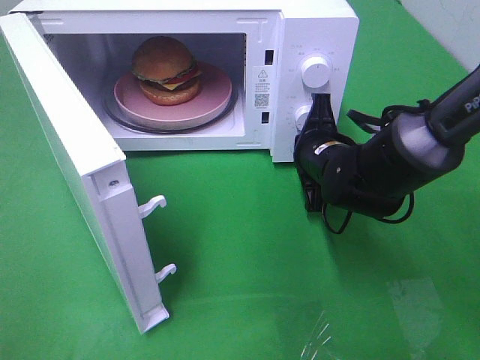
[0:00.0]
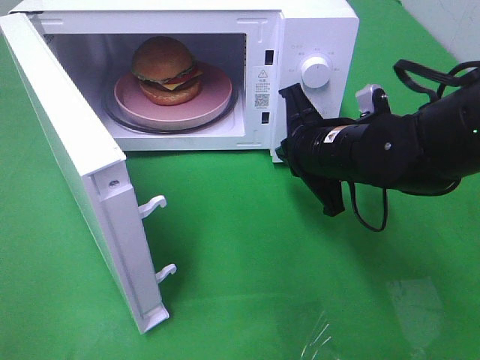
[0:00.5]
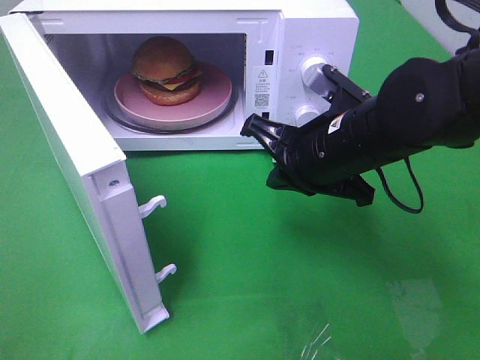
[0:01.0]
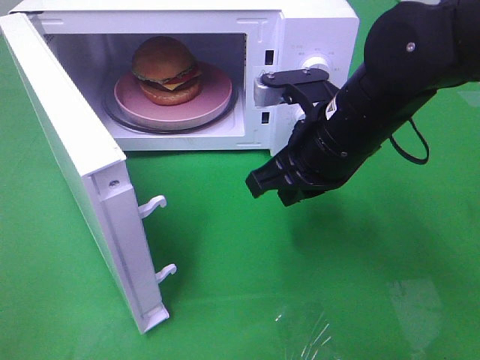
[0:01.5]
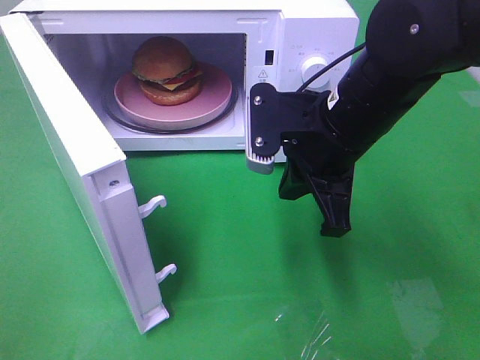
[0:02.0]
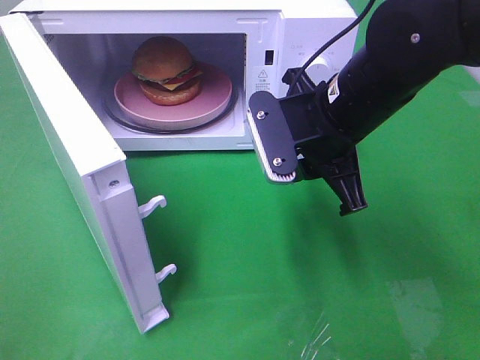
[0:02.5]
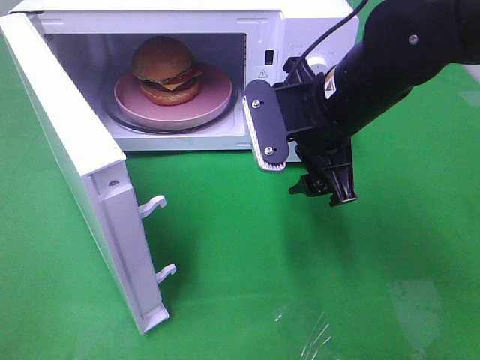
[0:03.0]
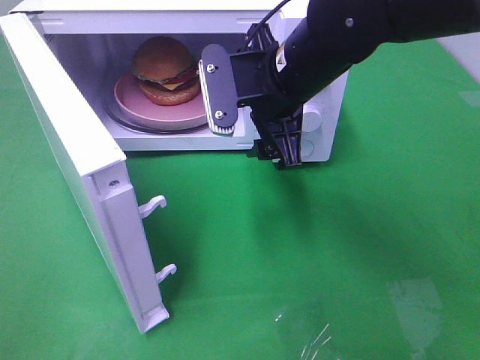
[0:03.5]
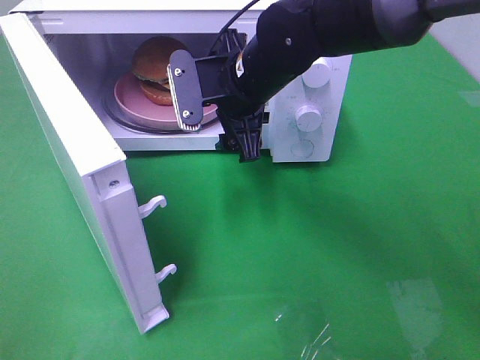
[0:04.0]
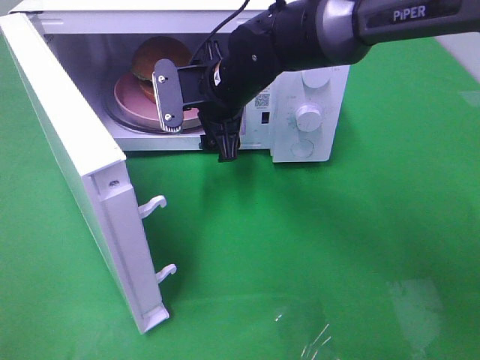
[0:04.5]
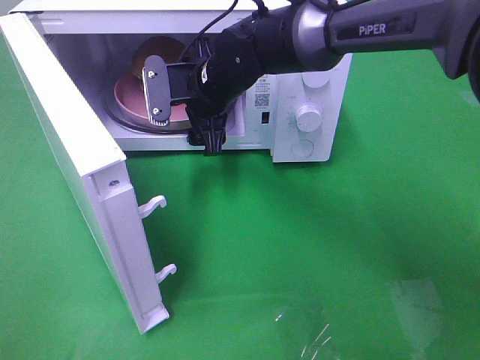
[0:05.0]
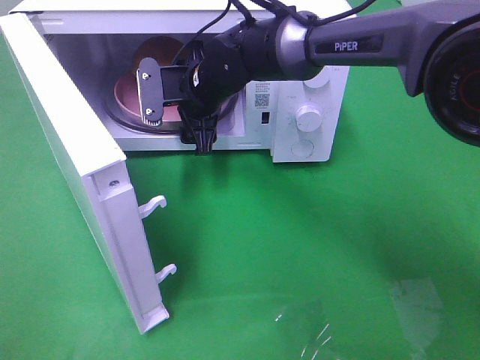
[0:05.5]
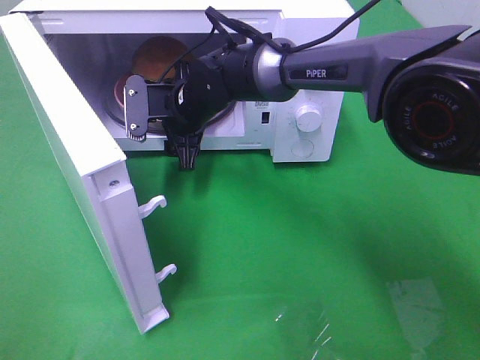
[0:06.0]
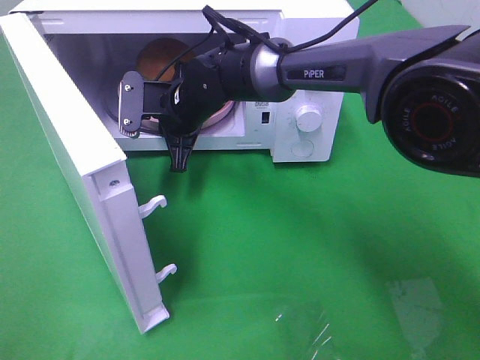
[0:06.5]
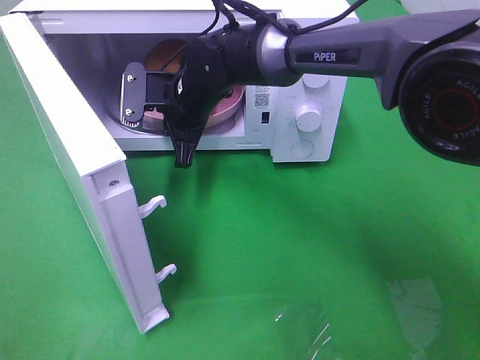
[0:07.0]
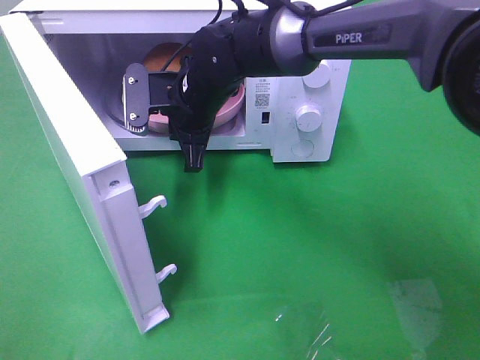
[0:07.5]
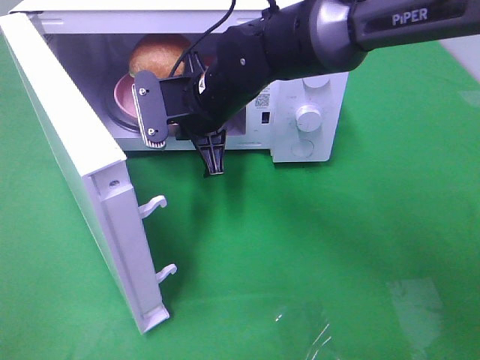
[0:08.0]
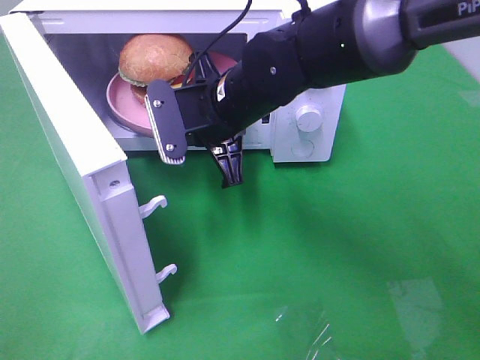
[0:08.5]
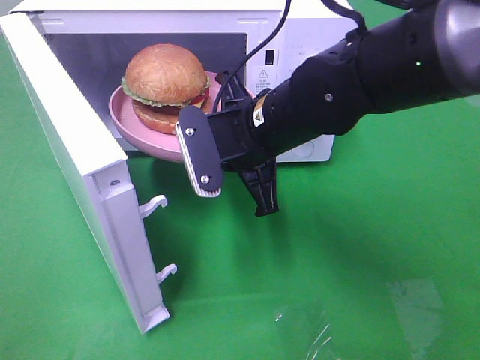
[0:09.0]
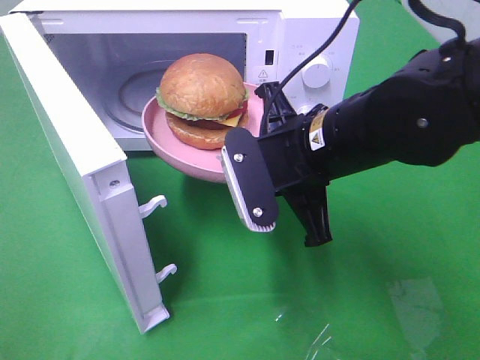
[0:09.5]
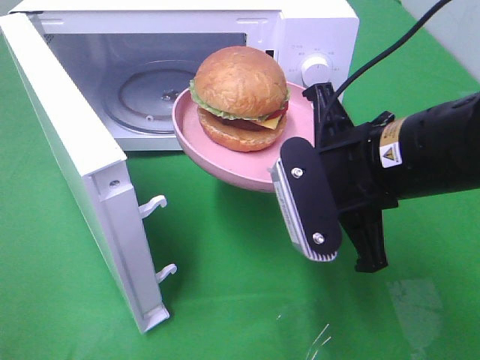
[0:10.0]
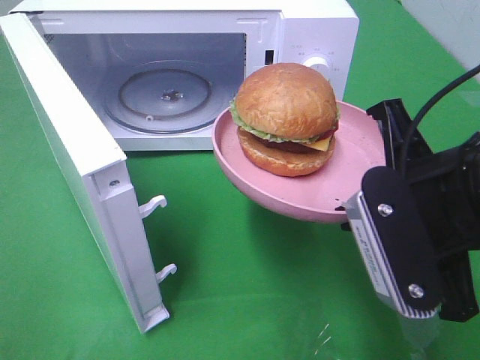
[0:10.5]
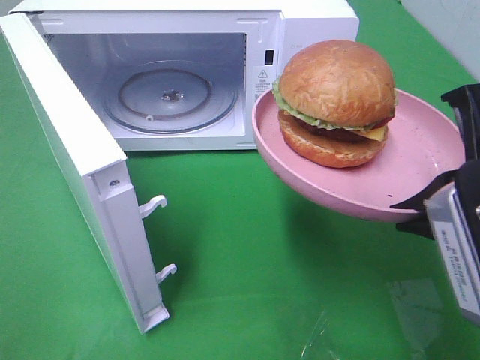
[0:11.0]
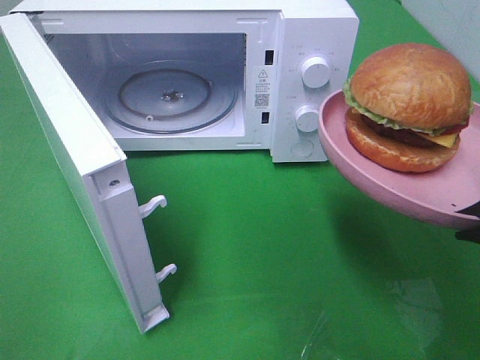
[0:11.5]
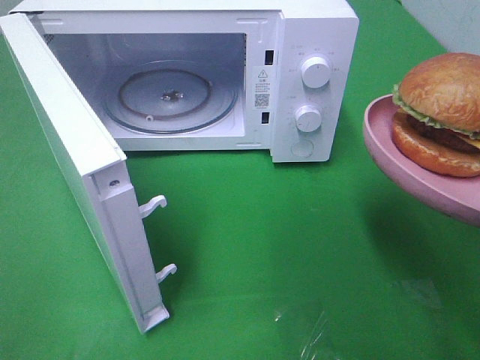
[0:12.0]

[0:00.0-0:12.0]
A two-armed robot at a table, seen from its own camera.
Task of the whole recording: Heat the burger.
Step, 0:00.5 to 0:06.5: Right hand: grab the plate with the hamburger.
0:00.0 to 0:02.0: The right gripper shifts about 10 cm upward and backward.
0:02.0 to 0:04.0: The right gripper moves forward and to the left, approximately 10 cm, and opens up.
0:04.0 to 0:06.0: The right gripper goes approximately 10 cm downward, to the left and forward.
0:06.0 to 0:08.0: The right gripper shifts approximately 10 cm backward and upward, and closes its fingers.
0:08.0 to 0:10.0: The right gripper heads backward and to the right, covering roughly 20 cm.
0:10.0 to 0:12.0: The right gripper shifts approximately 15 cm to the right and backward.

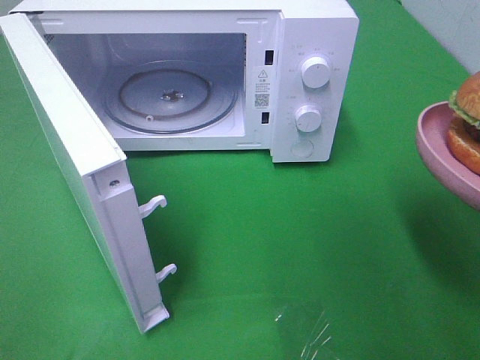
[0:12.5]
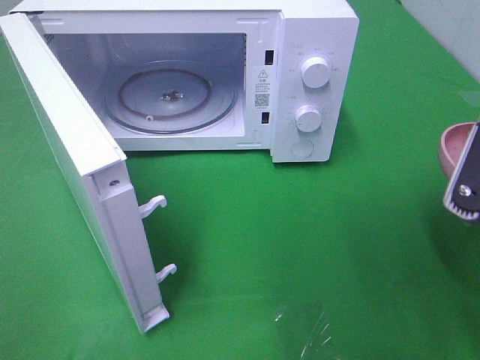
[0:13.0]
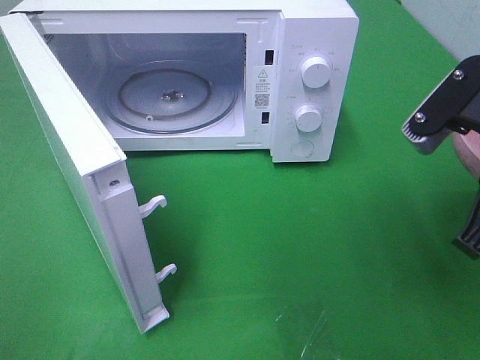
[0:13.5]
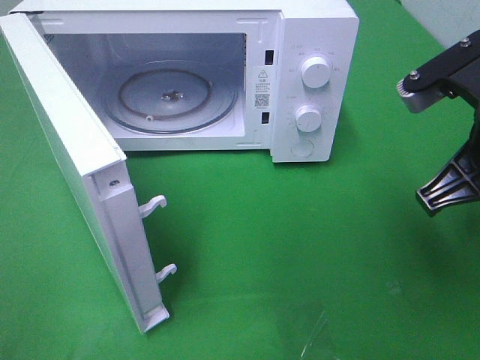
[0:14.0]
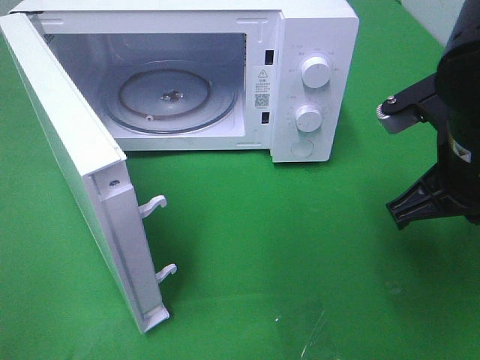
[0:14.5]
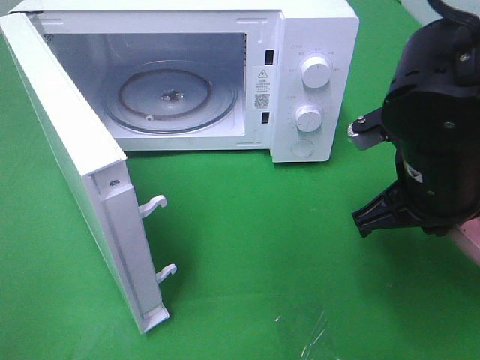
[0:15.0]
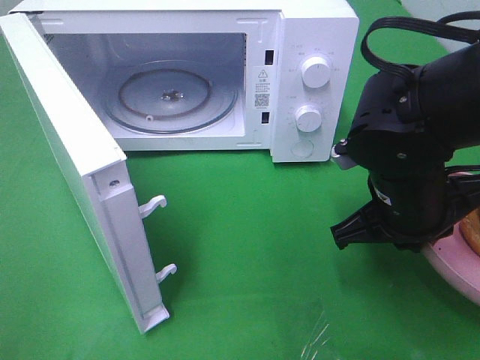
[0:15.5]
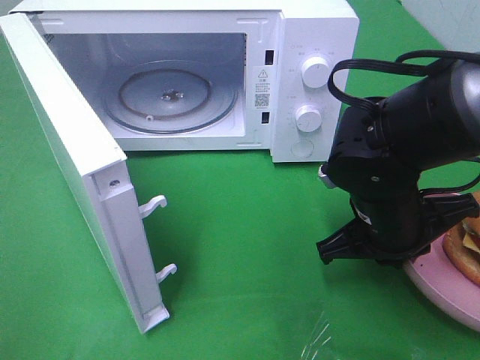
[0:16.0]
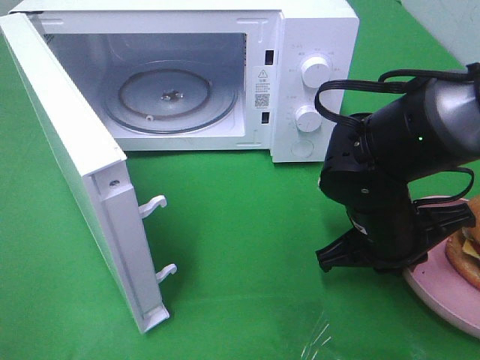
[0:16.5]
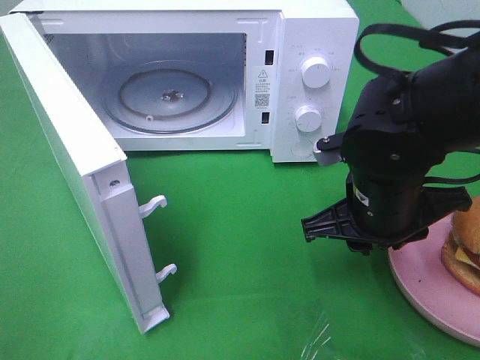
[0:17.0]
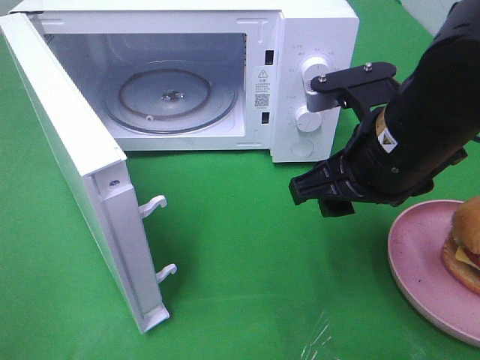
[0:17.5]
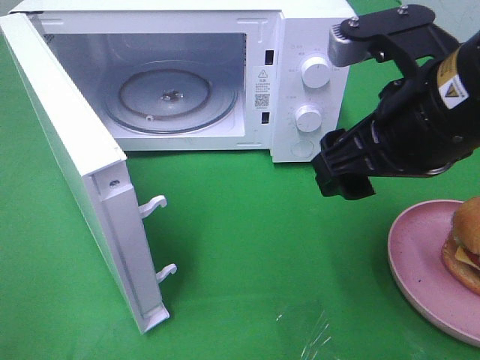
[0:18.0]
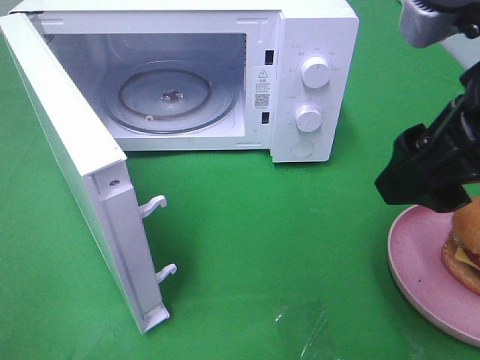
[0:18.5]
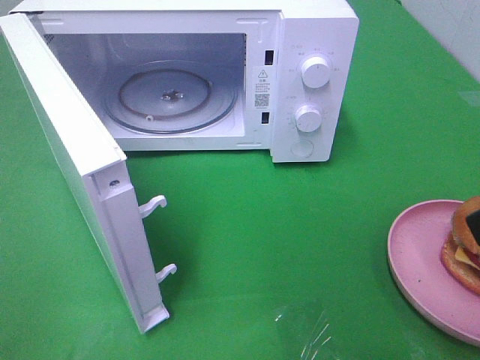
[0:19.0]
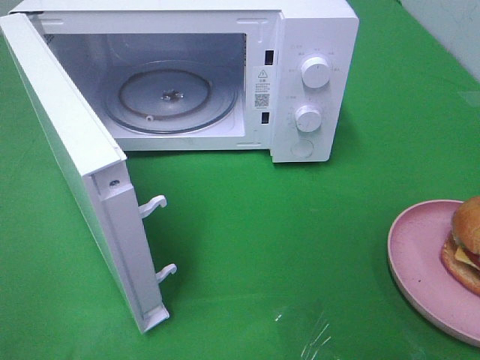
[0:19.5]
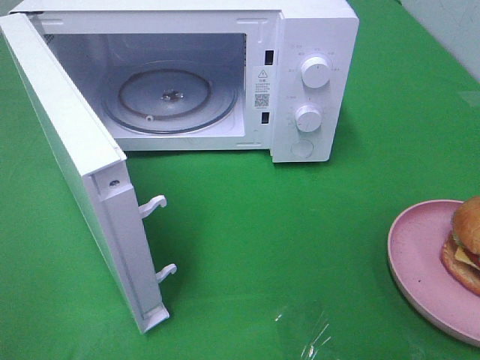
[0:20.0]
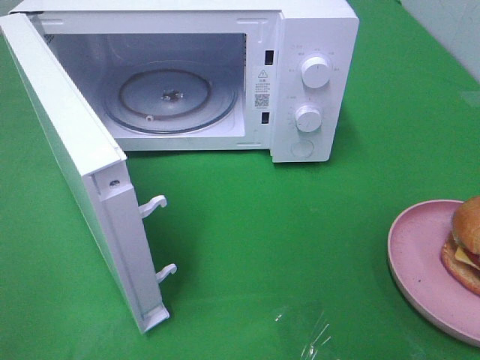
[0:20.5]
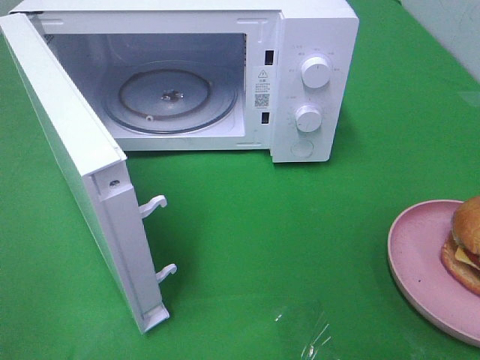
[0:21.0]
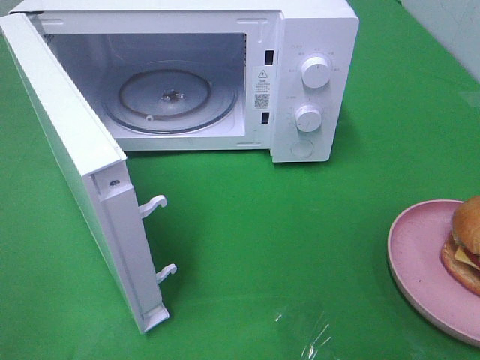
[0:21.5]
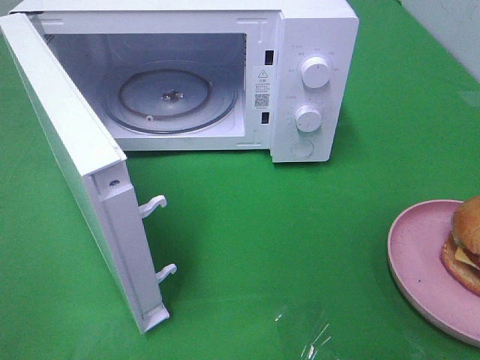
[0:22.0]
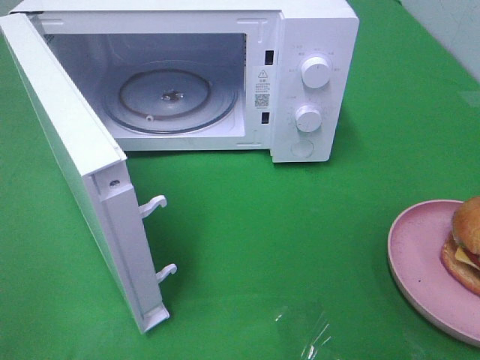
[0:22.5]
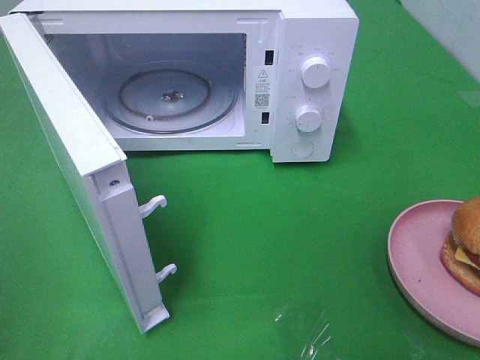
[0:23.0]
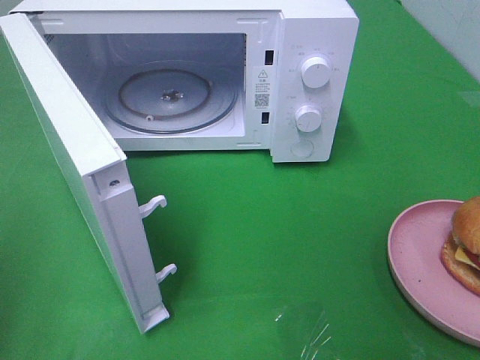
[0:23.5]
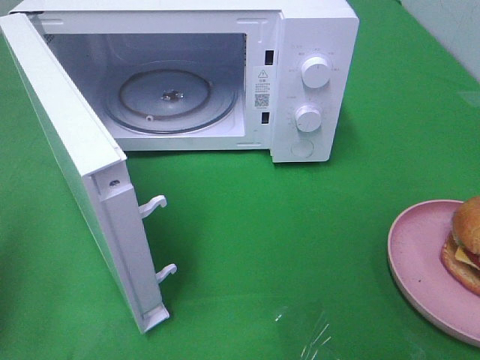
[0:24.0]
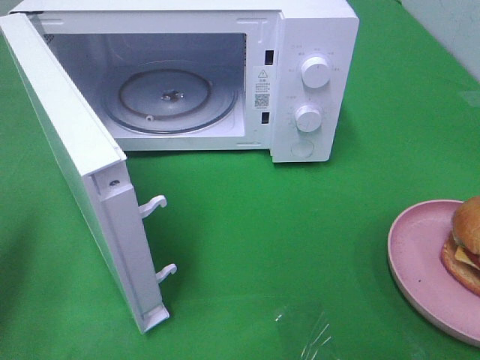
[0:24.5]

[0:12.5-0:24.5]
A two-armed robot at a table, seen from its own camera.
Task of the whole recording: Heat the burger.
Step, 0:12.5 to 0:16.5: Right hand: place the plate on the table.
0:12.5 to 0:14.5: The right gripper heads forward and to the left, covering roughly 10 cm.
0:14.5 to 0:16.5: The right gripper shifts about 10 cm downward.
0:16.5 to 0:18.5: The right gripper goes some 20 cm upward, and opens.
0:18.5 to 0:20.5: The right gripper shifts about 20 cm backward and to the right.
0:20.5 to 0:22.5: Both grippers stay put.
0:22.5 to 0:24.5: The left gripper goes about 20 cm forward and downward, and closes up.

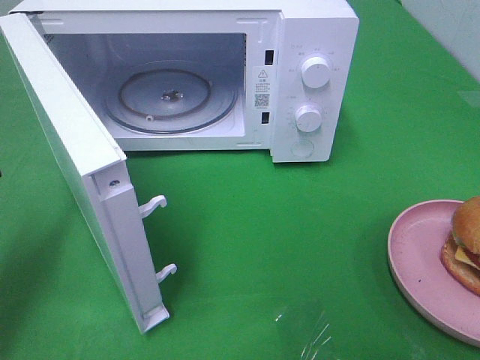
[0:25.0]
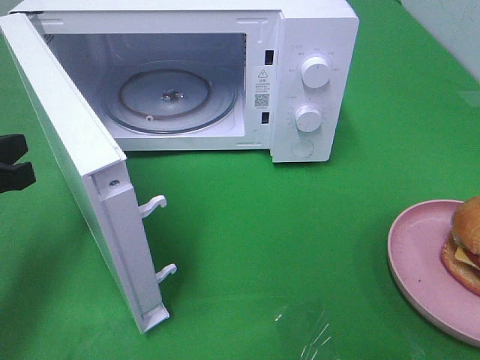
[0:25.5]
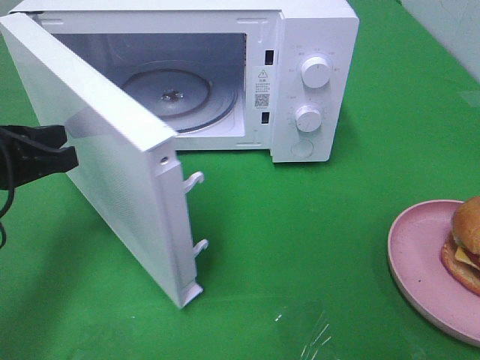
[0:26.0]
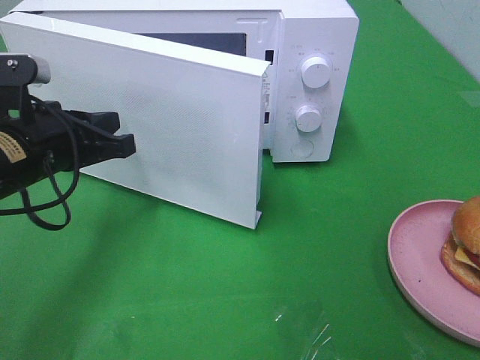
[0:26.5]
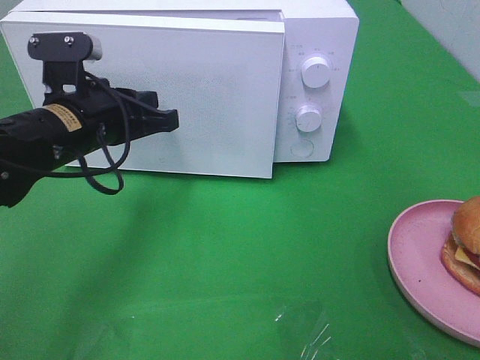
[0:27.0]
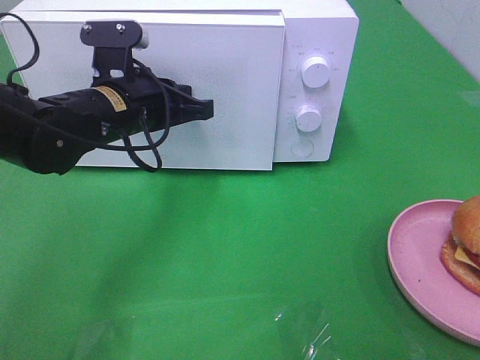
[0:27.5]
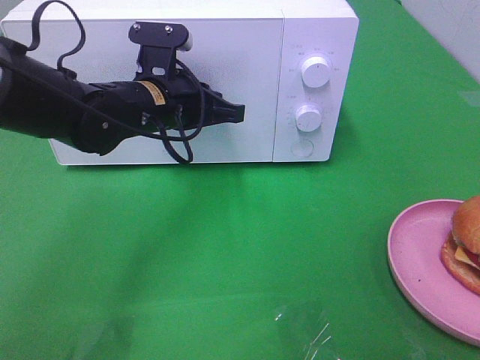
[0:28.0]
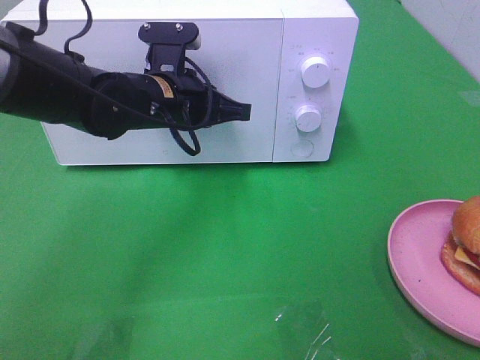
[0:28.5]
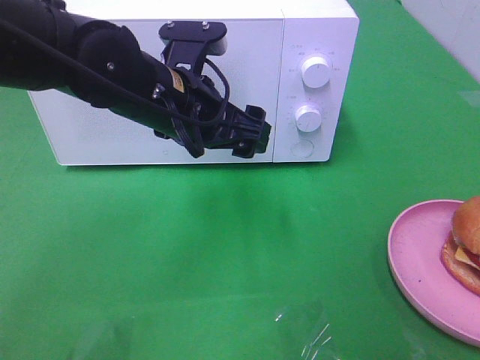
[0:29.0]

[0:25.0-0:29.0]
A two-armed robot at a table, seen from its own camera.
Task of the whole recording: Heat the burger.
Step, 0:25.0 to 0:28.5: Left hand: close the microwave door.
0:25.0 to 0:27.0: The left gripper is displaced to the right and forward by roughly 15 cm.
0:27.0 to 0:29.0: The left gripper travels to the right by some 10 cm, and opens up.
